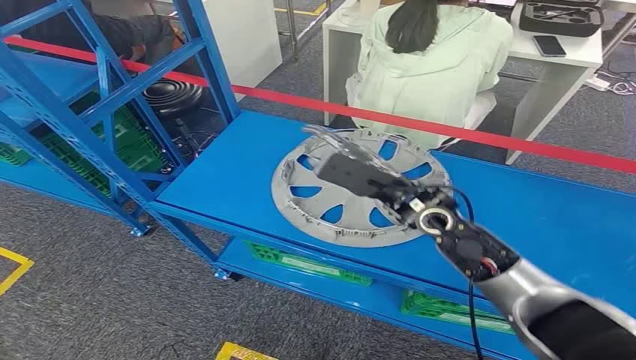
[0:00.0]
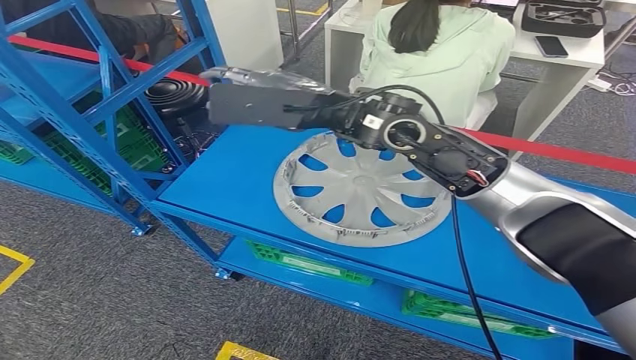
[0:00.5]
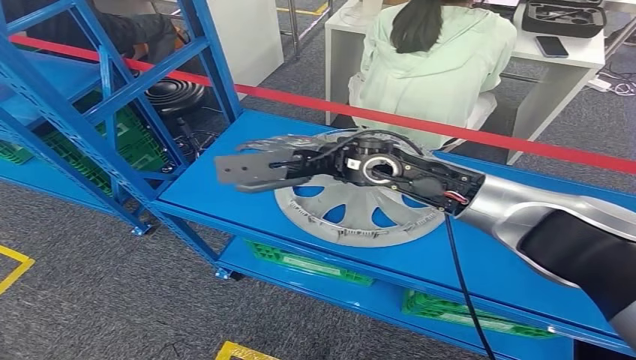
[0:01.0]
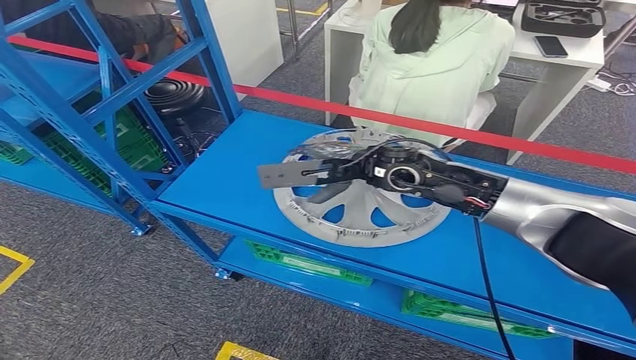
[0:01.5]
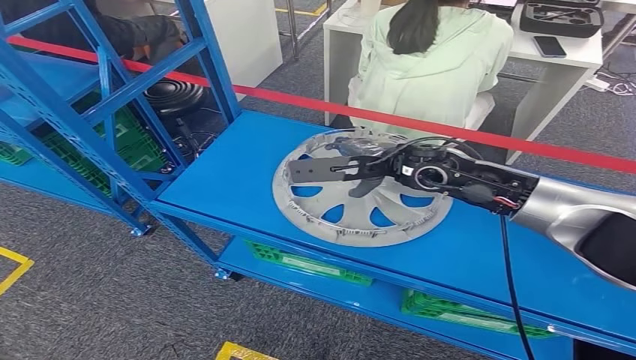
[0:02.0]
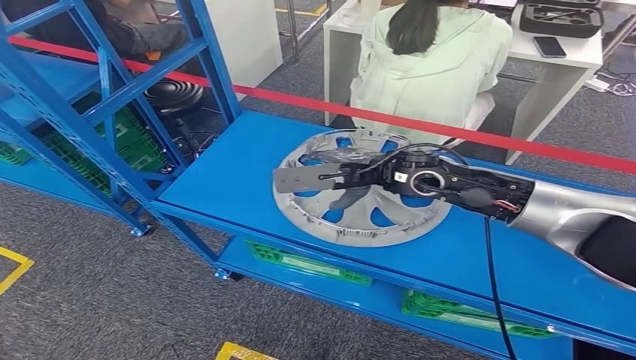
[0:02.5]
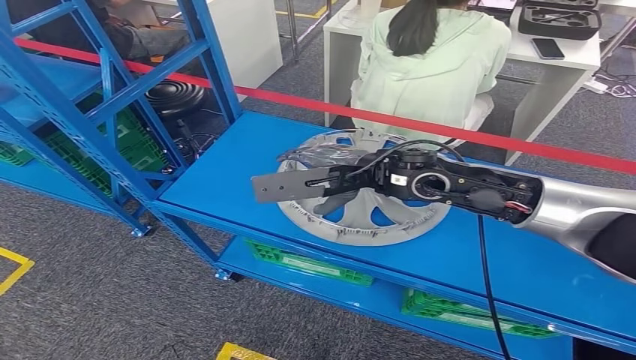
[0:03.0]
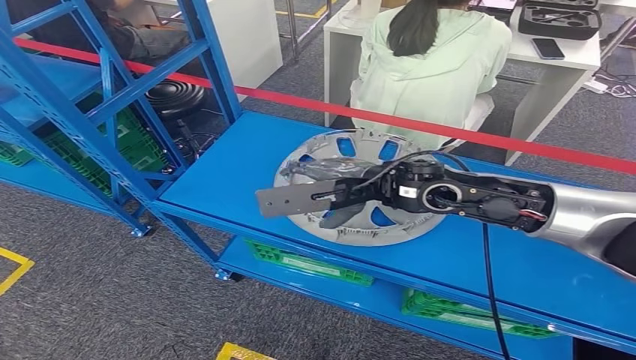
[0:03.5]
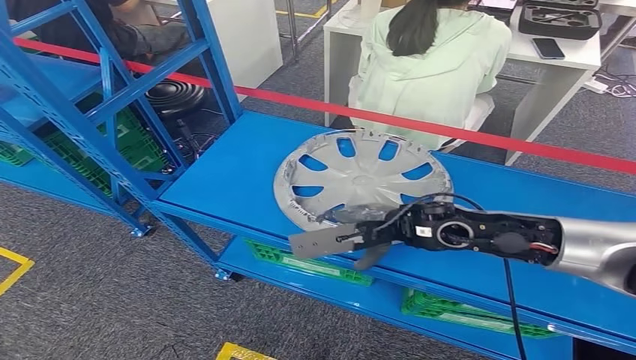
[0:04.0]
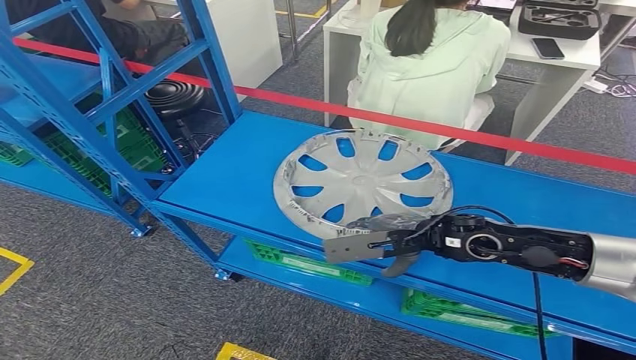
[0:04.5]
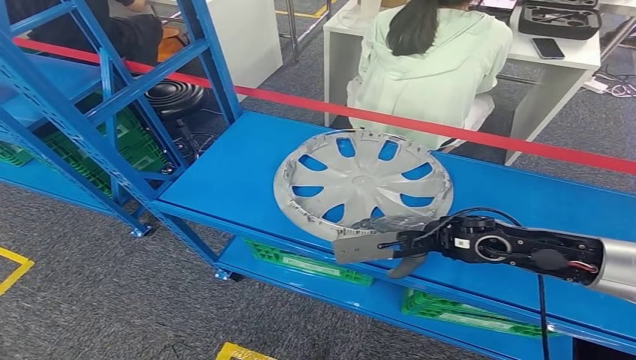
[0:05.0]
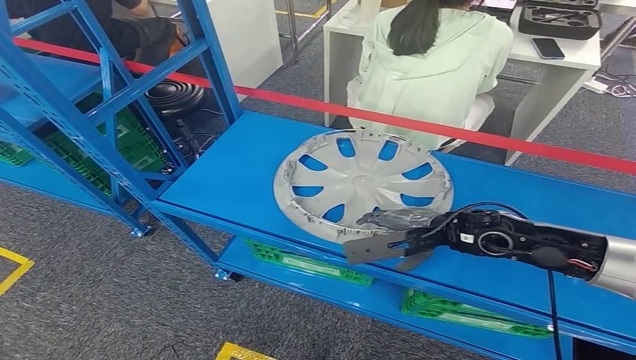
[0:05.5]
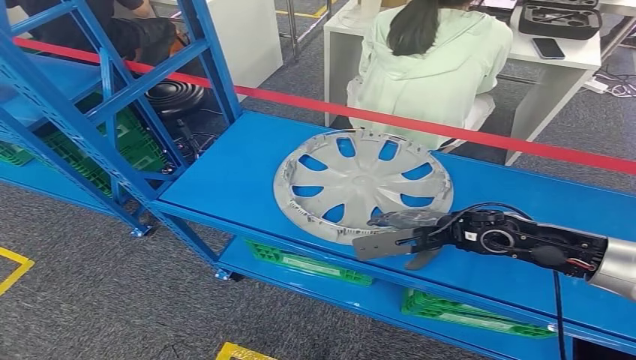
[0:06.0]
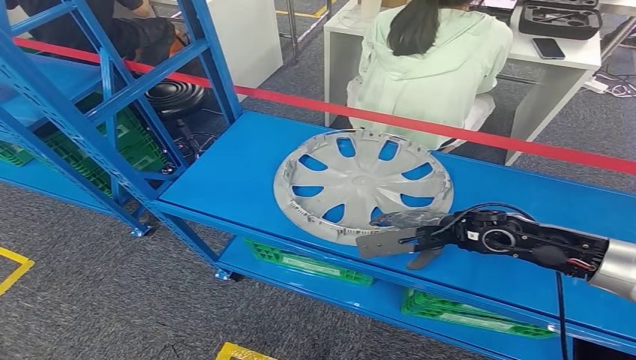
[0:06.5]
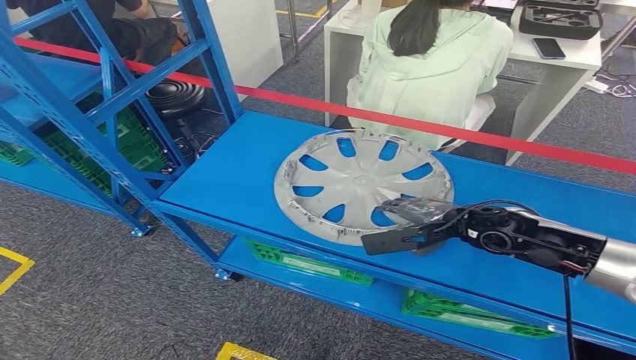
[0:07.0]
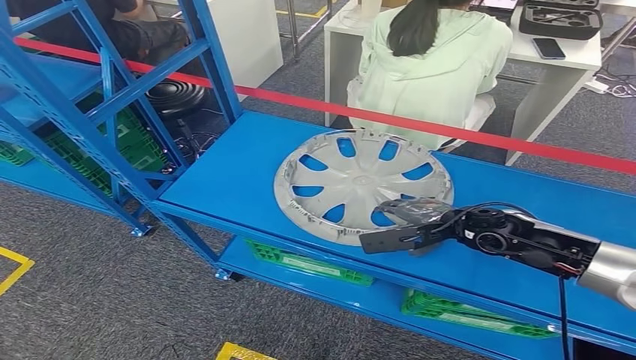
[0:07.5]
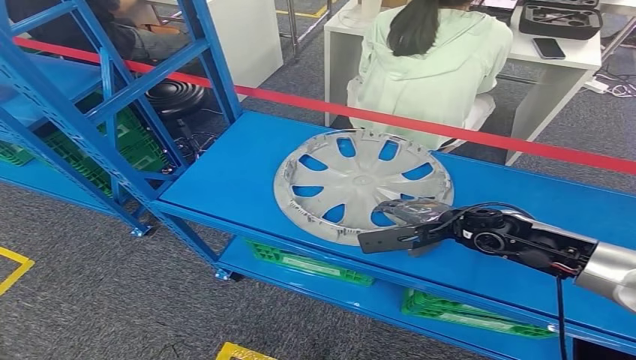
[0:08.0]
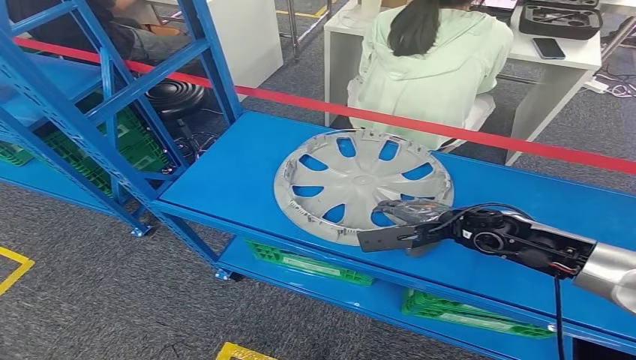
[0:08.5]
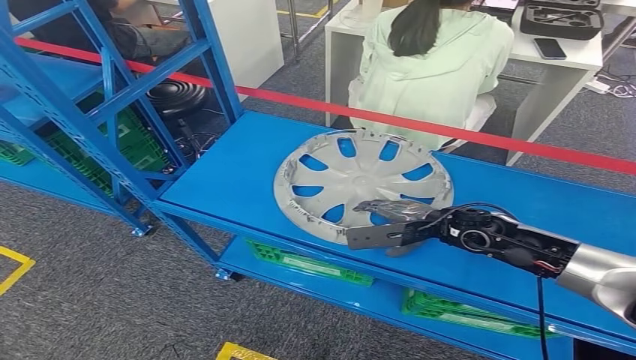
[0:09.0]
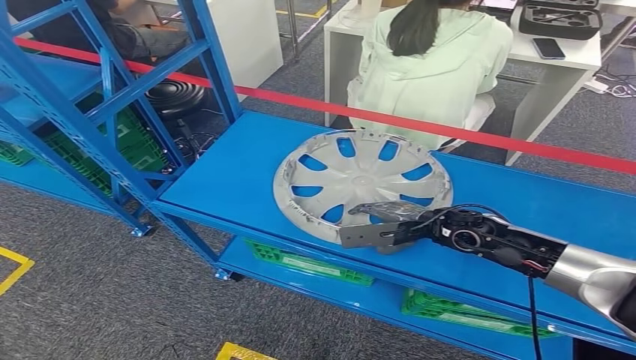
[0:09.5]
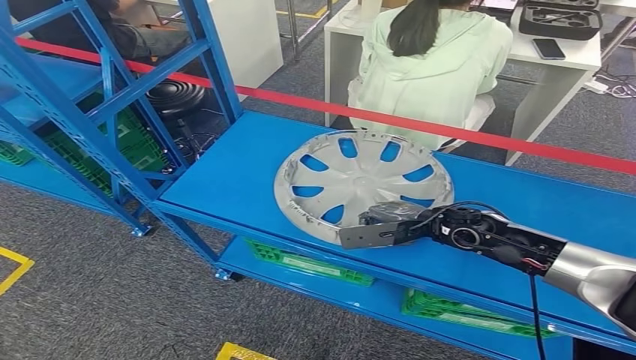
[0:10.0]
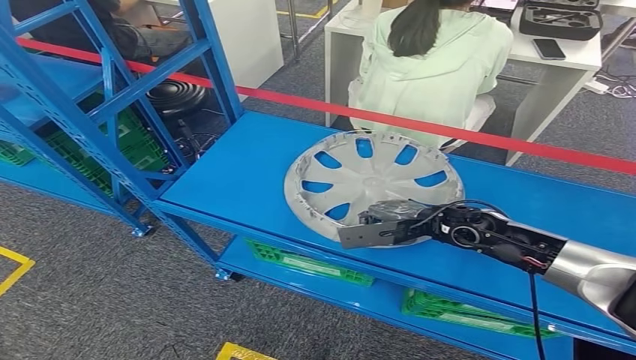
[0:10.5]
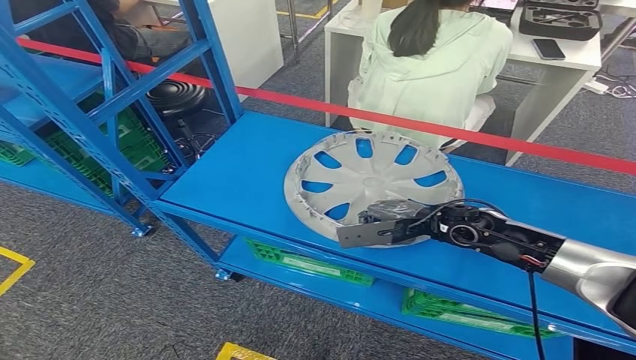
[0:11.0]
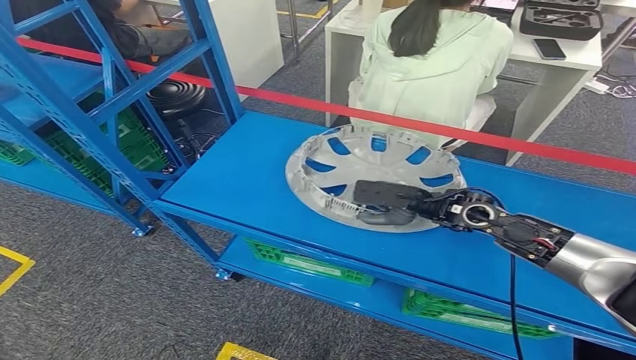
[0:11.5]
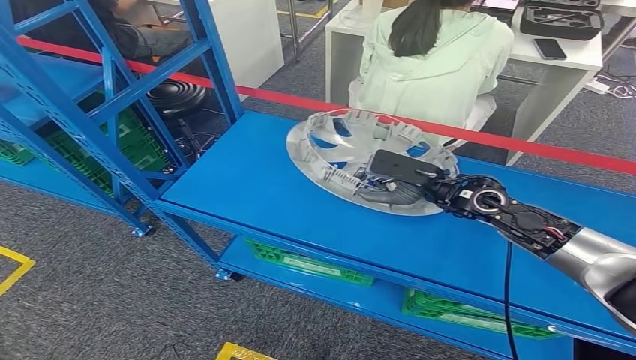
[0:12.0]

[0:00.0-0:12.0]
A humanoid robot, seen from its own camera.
0:02.0 to 0:04.0: The right hand is displaced backward by approximately 10 cm.
0:04.0 to 0:06.0: The right hand goes roughly 10 cm to the right and downward.
0:06.0 to 0:10.0: There are only small adjustments of the hands.
0:10.0 to 0:12.0: The right hand moves roughly 5 cm.

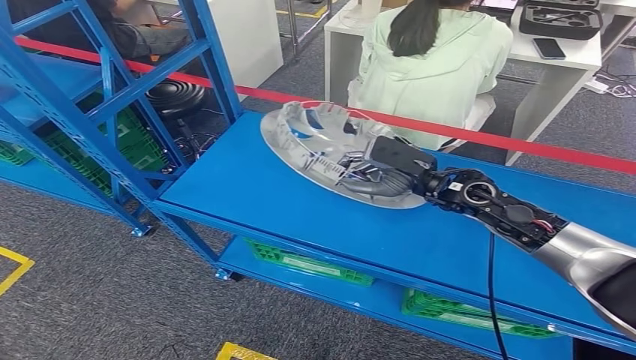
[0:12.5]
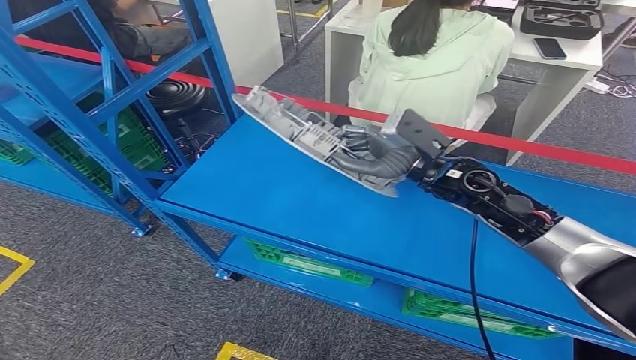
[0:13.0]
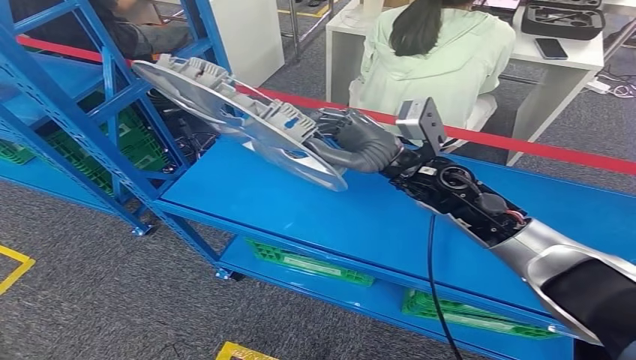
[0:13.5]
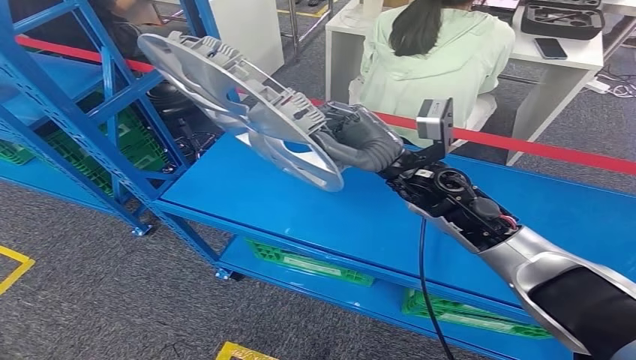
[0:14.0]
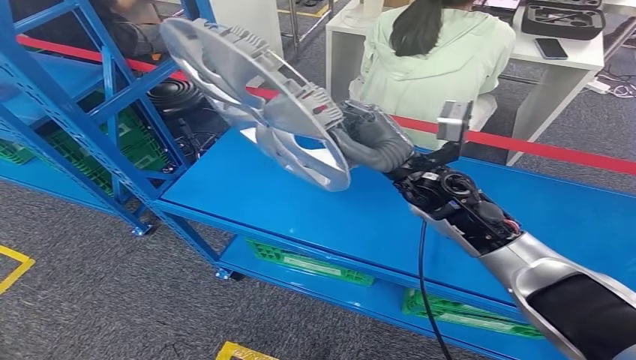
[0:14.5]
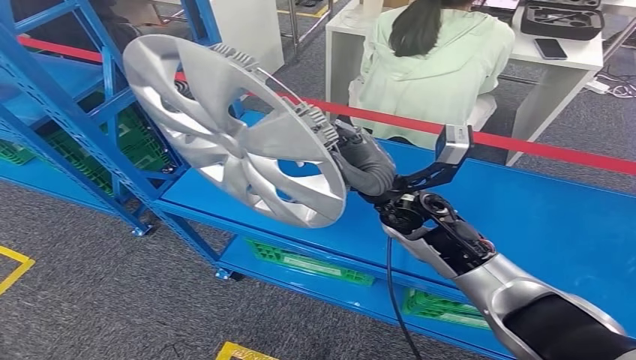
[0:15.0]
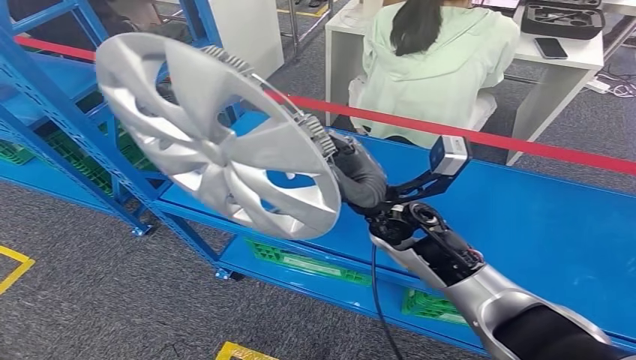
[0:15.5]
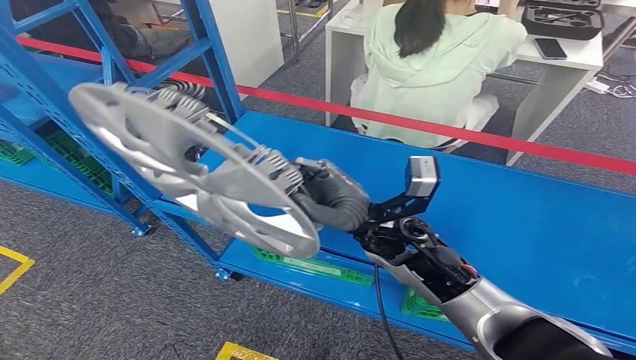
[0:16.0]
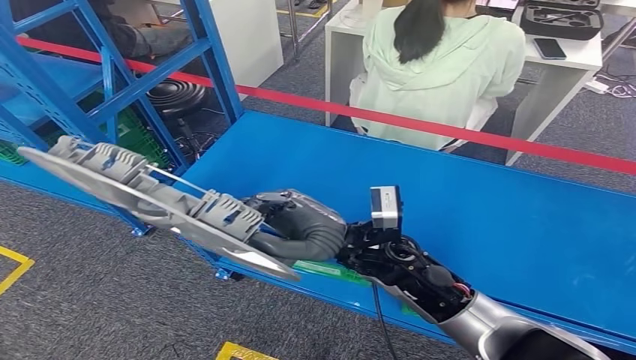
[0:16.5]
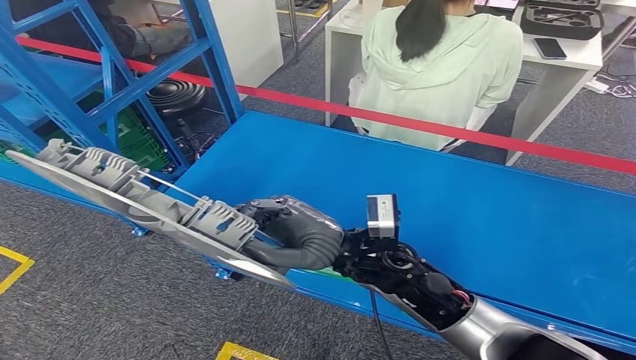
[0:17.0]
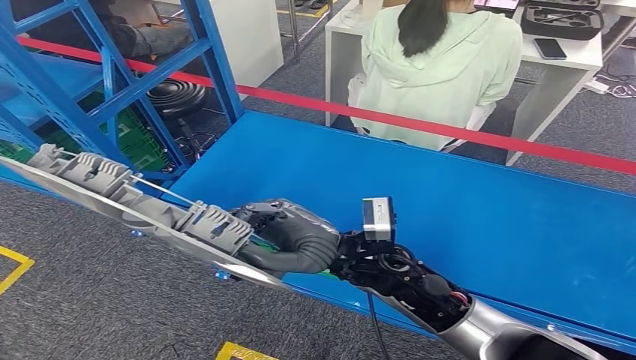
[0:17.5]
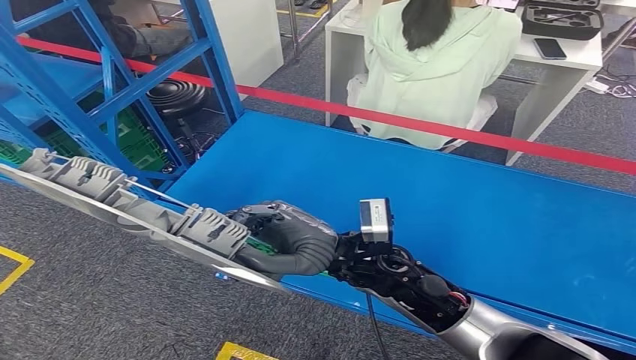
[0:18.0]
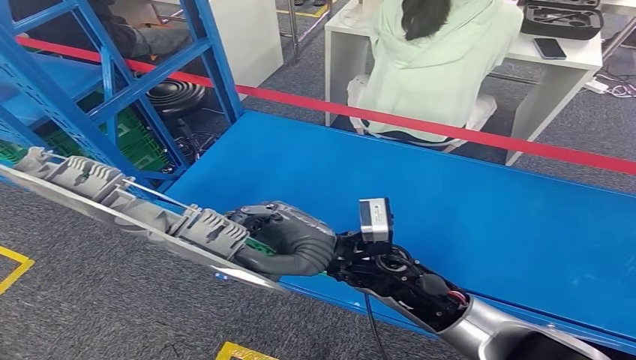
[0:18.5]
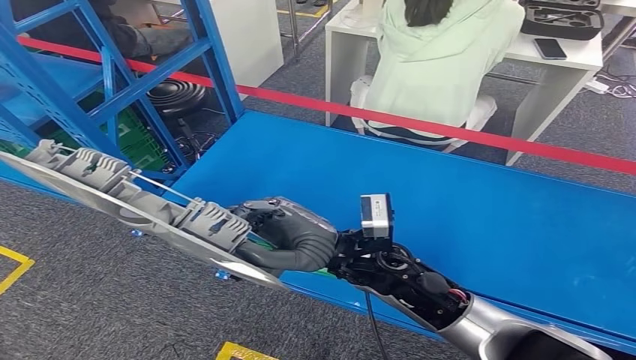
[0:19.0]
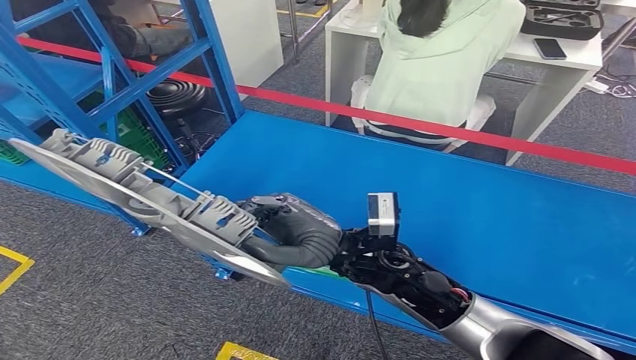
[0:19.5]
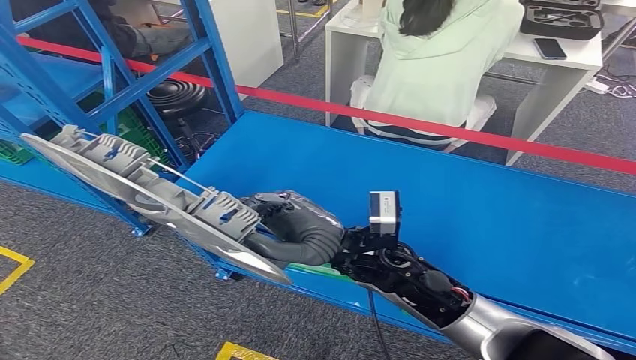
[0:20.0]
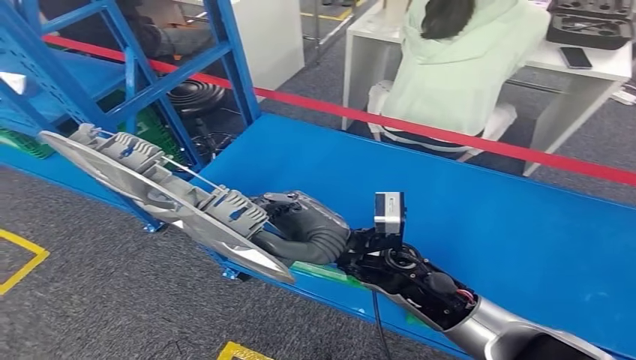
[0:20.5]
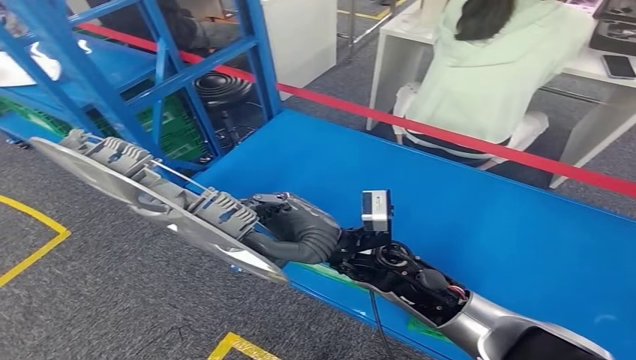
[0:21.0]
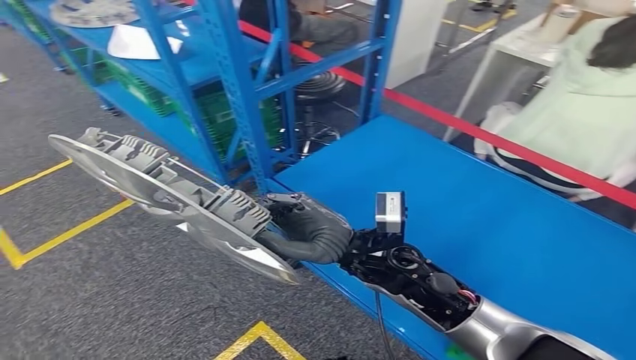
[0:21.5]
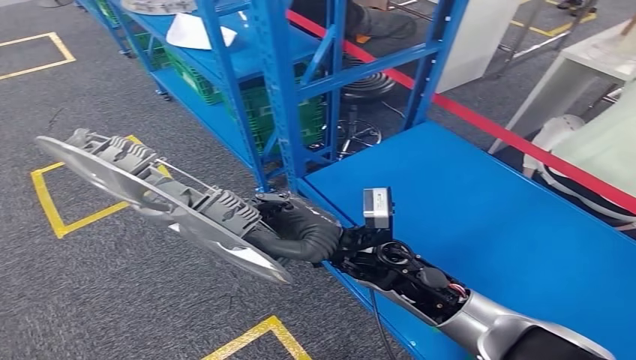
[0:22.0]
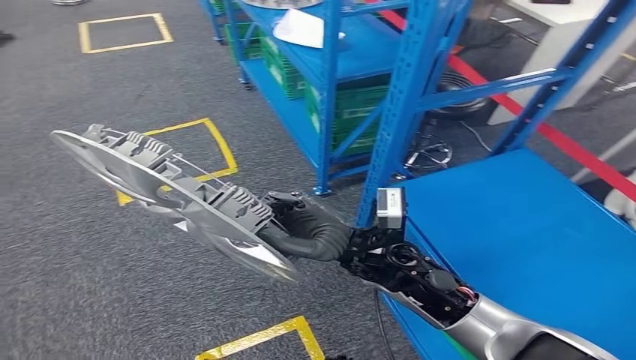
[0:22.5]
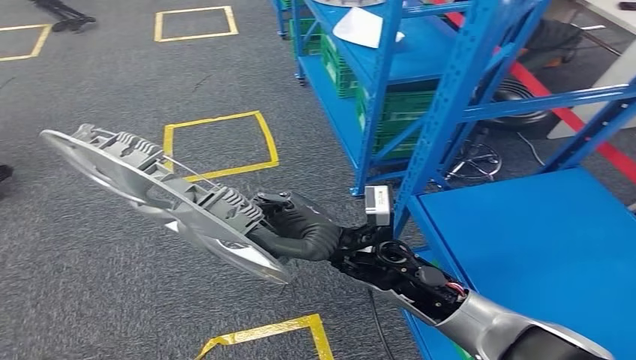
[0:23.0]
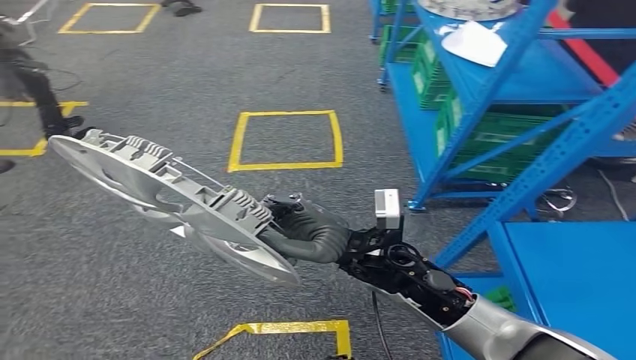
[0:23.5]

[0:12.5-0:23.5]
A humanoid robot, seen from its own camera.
Step, 0:12.5 to 0:16.0: Pick up the small component from the shelf.
0:12.5 to 0:14.5: The right hand heads to the left, covering roughly 5 cm.
0:18.0 to 0:20.0: There are only small adjustments of the hands.
